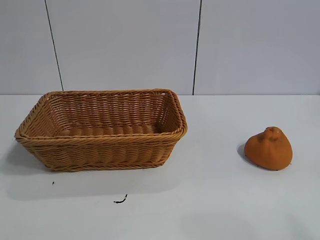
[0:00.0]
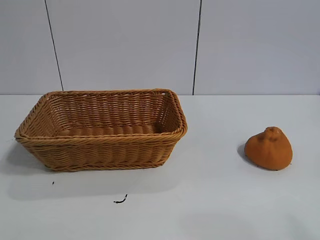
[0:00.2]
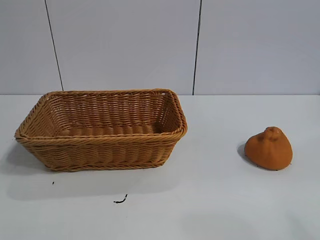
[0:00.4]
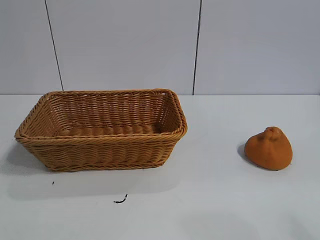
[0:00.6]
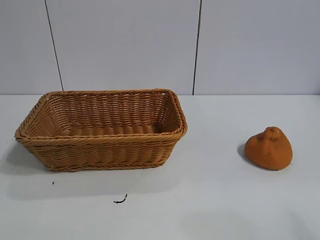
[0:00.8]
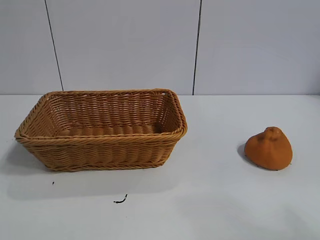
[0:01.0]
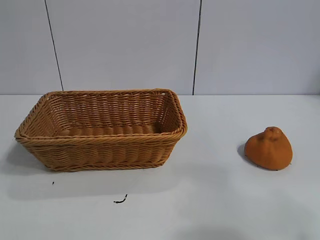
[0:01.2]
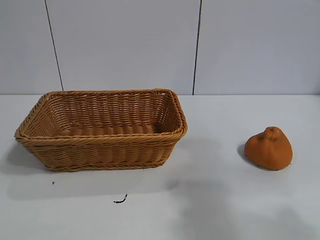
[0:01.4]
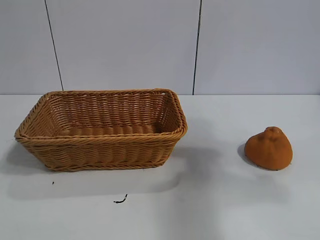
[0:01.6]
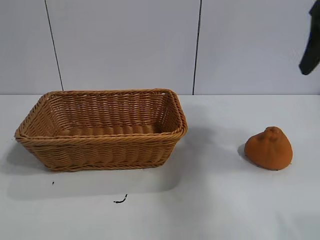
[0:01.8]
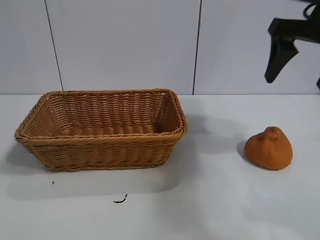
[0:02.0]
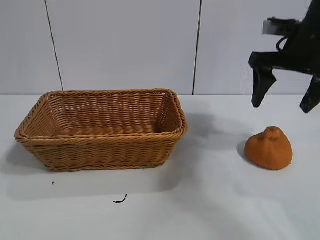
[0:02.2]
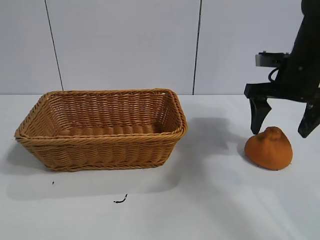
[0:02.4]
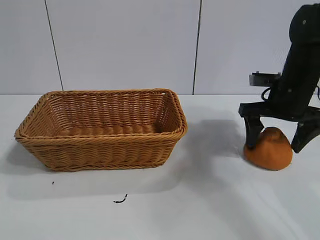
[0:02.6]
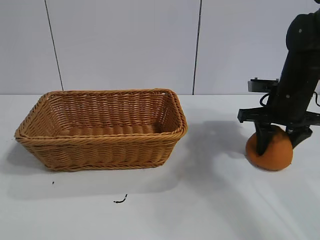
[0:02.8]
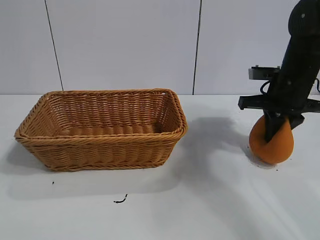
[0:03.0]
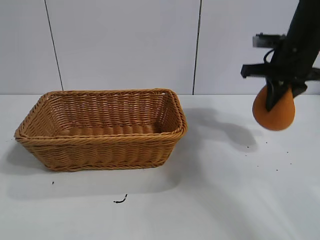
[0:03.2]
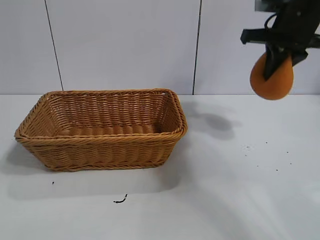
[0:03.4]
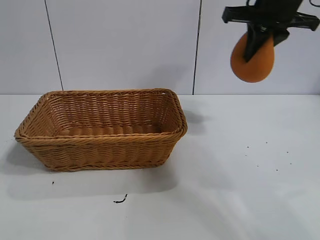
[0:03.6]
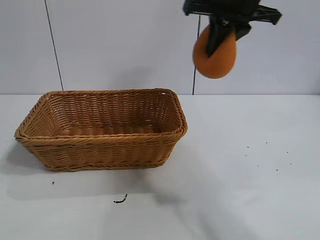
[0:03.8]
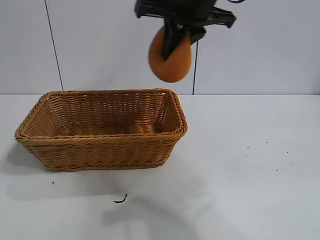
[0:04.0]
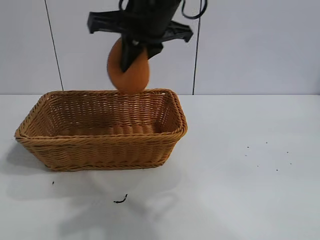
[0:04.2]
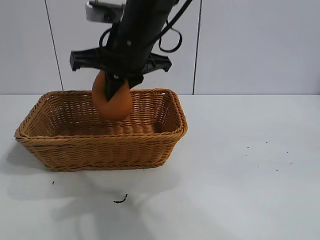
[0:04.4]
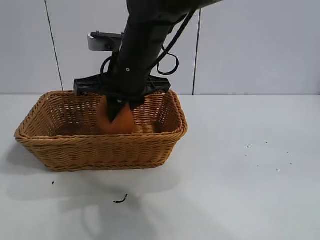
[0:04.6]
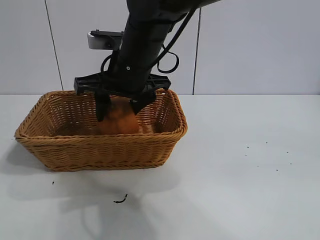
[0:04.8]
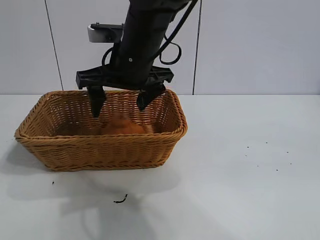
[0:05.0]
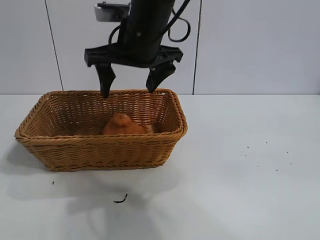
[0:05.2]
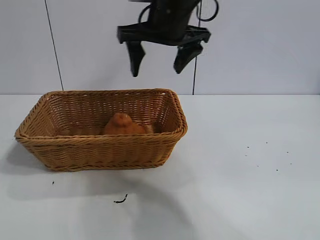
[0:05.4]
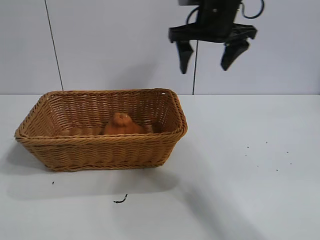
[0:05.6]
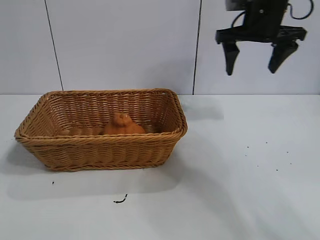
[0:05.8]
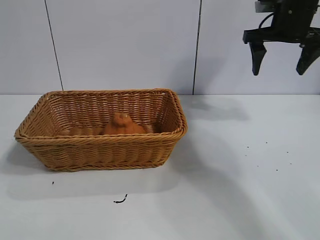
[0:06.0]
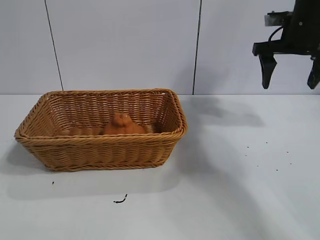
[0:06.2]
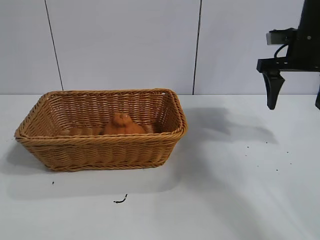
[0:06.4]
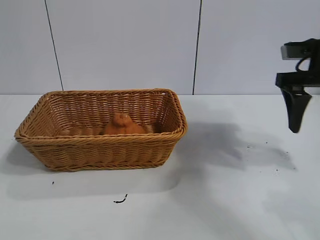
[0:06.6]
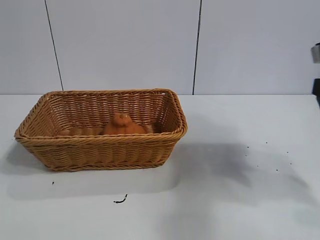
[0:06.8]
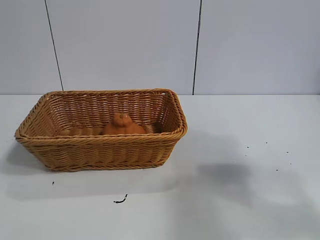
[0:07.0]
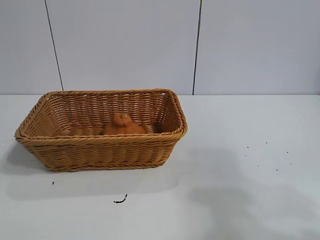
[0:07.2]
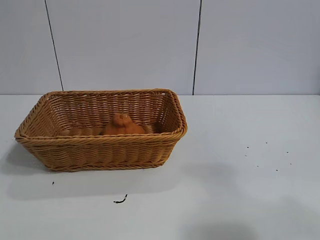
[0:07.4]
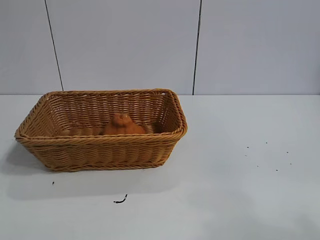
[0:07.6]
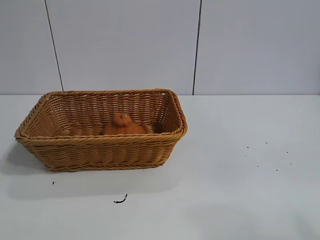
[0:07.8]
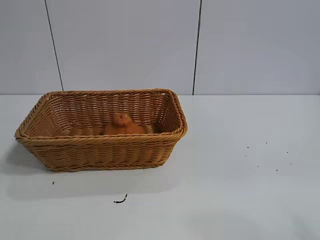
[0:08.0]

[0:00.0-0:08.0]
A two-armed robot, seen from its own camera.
Task of the whole recording: pick up the orange and put it into the basket.
Step, 0:00.8 to 0:02.8: Grasp the orange with right gripper.
Step, 0:03.0 to 0:04.8: Place the orange in the basket with right gripper.
